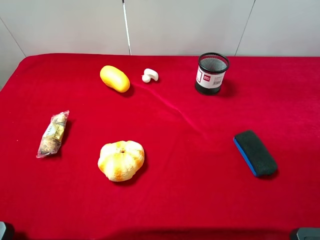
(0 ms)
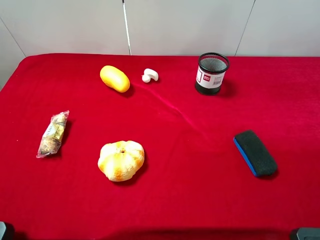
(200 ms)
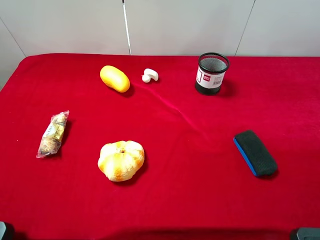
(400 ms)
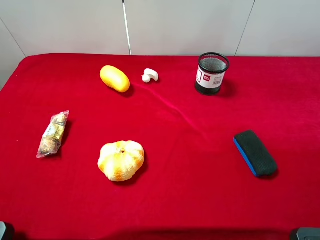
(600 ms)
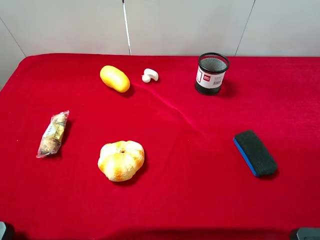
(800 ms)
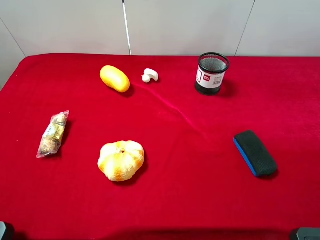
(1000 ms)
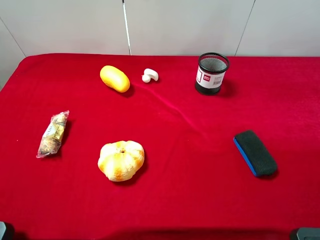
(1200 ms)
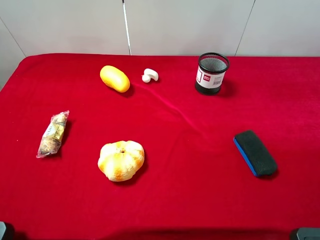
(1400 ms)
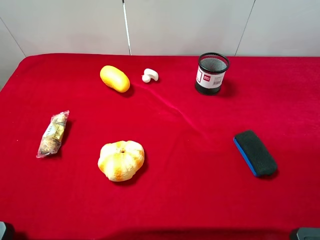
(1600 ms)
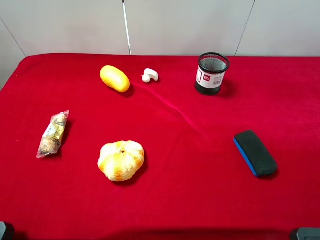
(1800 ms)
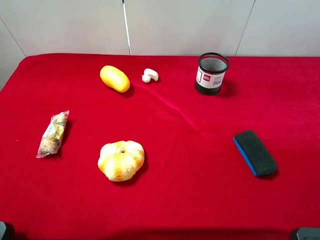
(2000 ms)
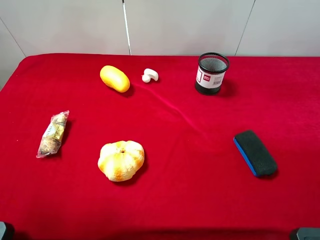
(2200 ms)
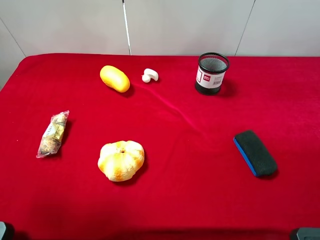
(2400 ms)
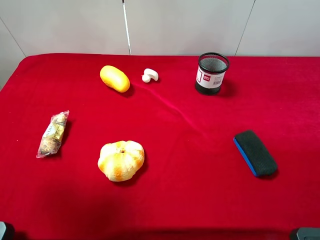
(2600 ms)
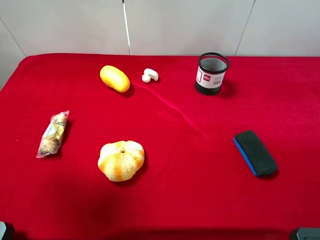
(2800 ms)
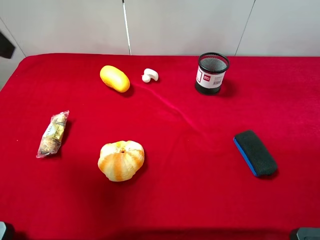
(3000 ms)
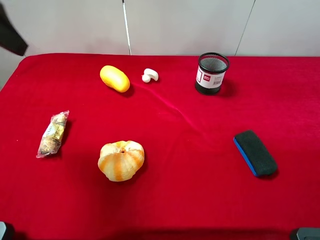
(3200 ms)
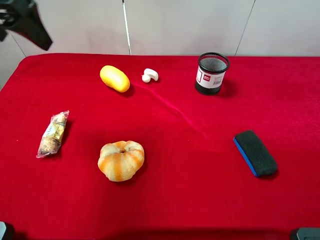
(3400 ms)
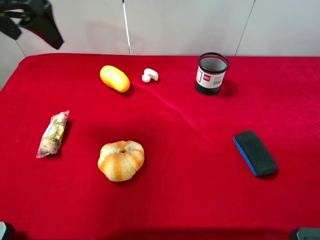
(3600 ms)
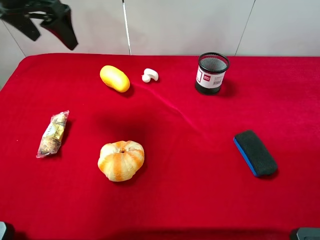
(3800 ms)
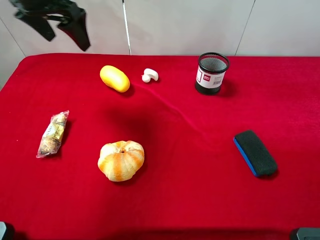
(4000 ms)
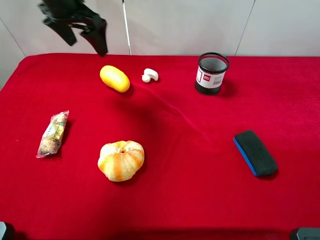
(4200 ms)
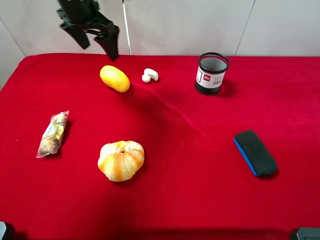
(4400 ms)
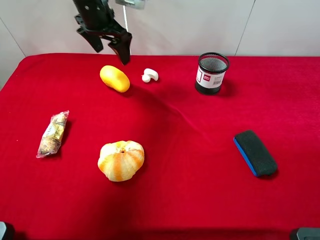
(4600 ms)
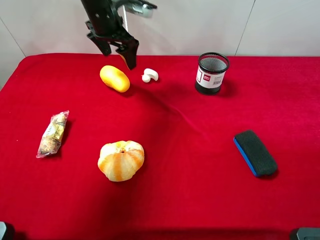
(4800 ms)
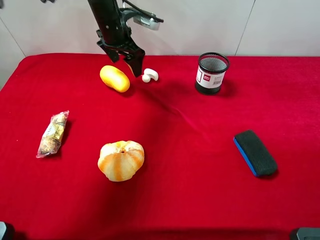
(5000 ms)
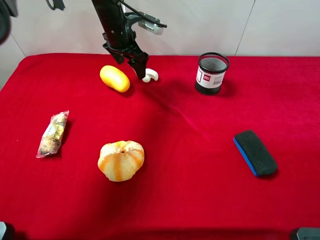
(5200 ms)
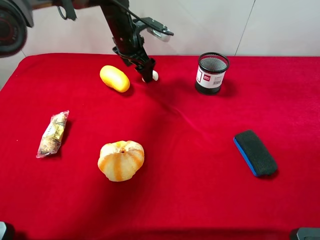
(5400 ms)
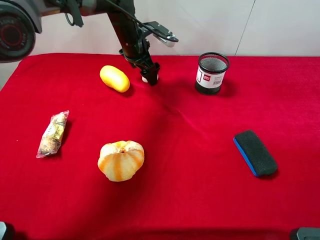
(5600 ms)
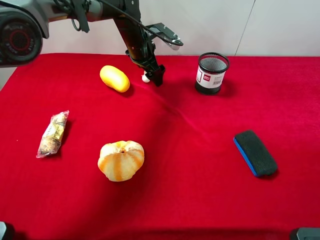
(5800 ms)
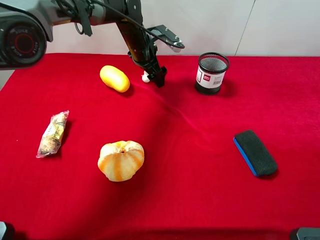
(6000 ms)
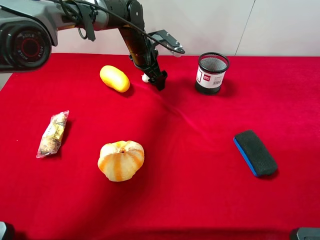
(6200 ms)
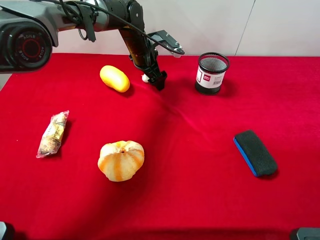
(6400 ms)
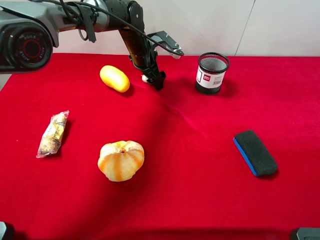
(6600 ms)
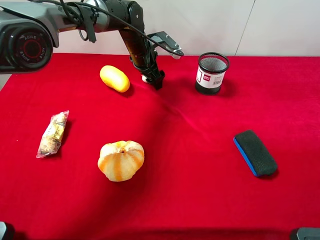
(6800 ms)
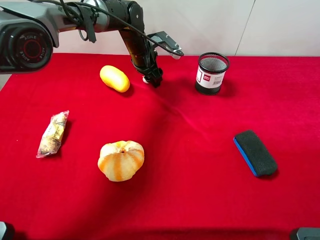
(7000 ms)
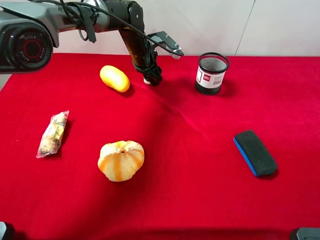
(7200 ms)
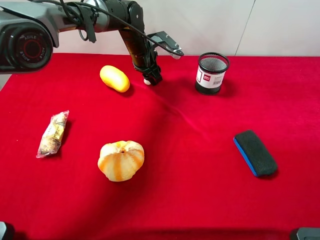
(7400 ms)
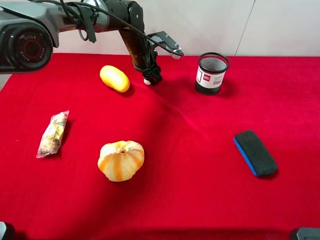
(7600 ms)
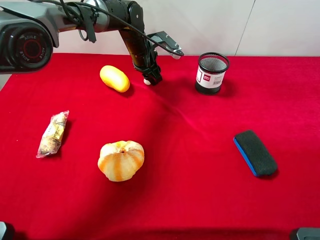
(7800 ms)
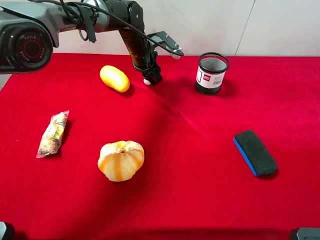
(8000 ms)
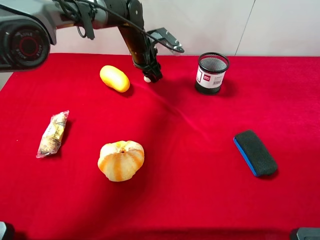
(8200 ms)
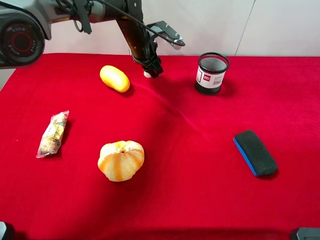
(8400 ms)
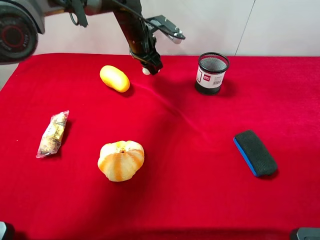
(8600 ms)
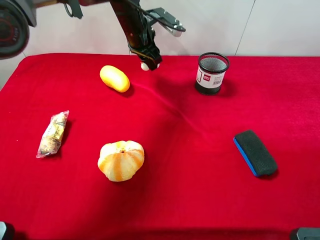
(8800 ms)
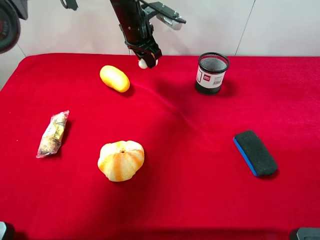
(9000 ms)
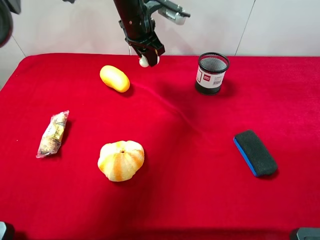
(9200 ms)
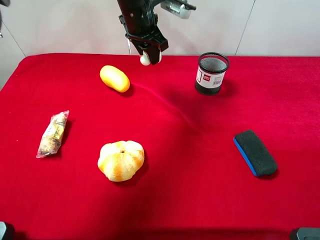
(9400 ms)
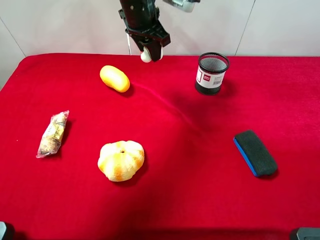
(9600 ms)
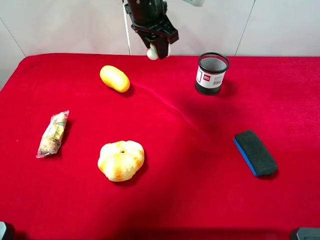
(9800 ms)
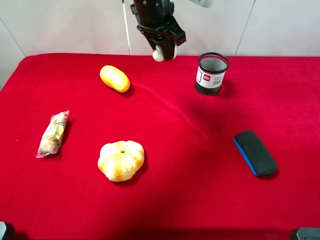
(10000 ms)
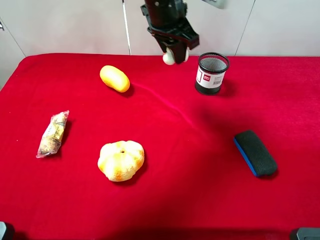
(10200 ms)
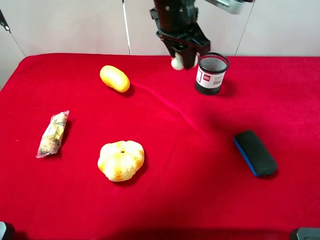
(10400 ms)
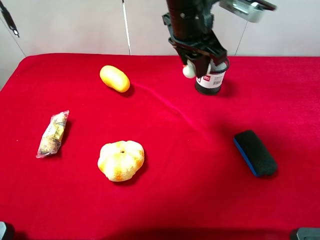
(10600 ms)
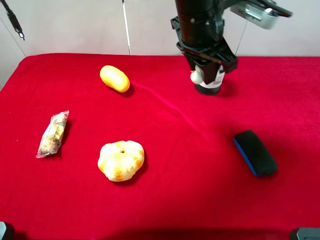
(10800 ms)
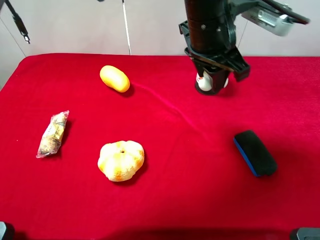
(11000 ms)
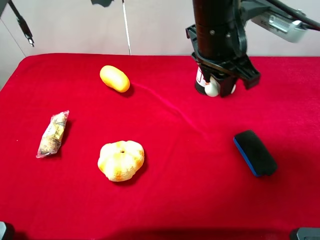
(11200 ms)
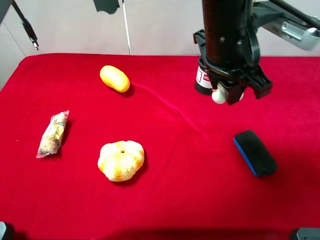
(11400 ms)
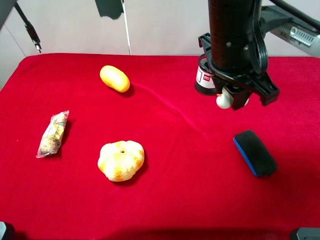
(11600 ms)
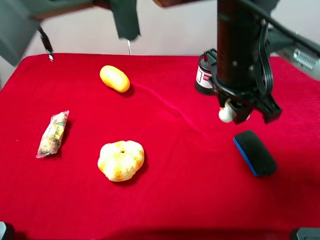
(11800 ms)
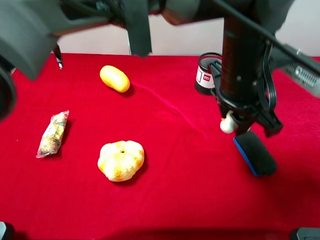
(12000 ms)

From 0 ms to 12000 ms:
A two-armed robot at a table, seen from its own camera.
Task of the whole recording: the gripper move the object.
Step, from 0 ms to 7400 ms: Grasp the white duck with the left gripper.
From 1600 ms to 3000 ms: The left gripper goes some 20 cm forward.
From 3000 ms to 4400 ms: The left gripper heads forward, to the right and downward, covering some 25 cm.
From 4400 ms to 6000 ms: The left gripper is displaced downward, to the right and forward by roughly 15 cm.
From 6000 ms to 7600 ms: The left gripper closes its fingers.
From 7600 ms to 9000 ms: The left gripper is displaced upward by approximately 10 cm.
From 9000 ms to 10400 ms: The left gripper goes about 15 cm backward, to the right and upward.
From 10400 ms to 12000 ms: The left gripper heads backward and to the right, covering about 15 cm.

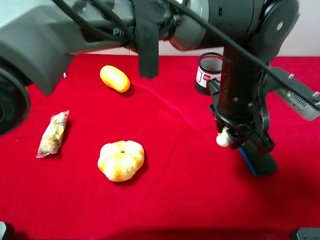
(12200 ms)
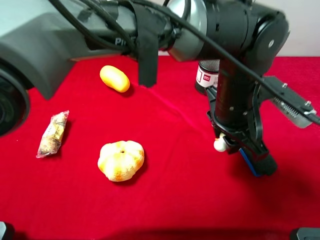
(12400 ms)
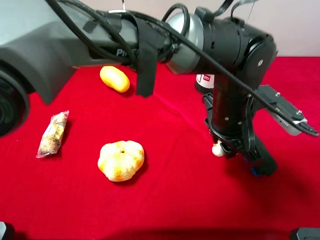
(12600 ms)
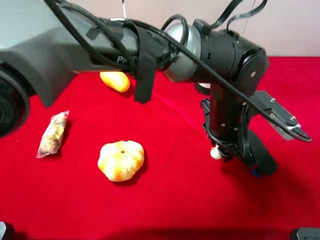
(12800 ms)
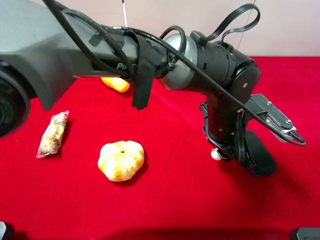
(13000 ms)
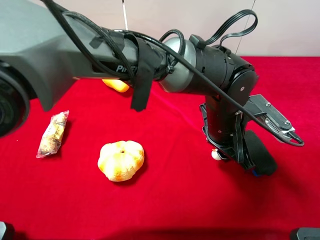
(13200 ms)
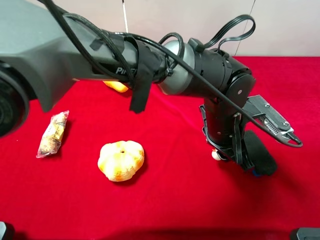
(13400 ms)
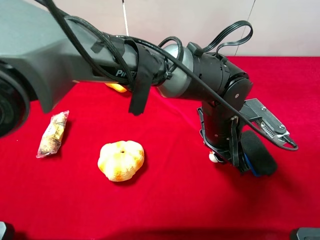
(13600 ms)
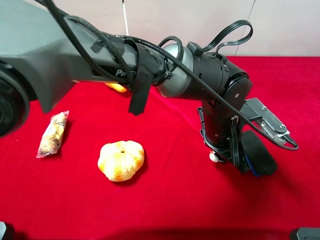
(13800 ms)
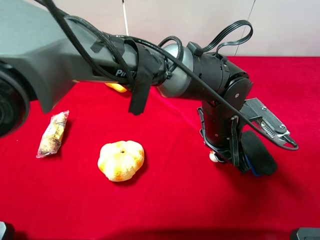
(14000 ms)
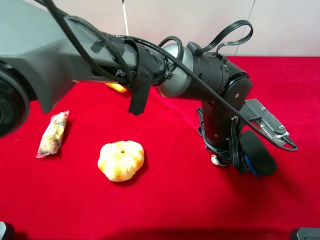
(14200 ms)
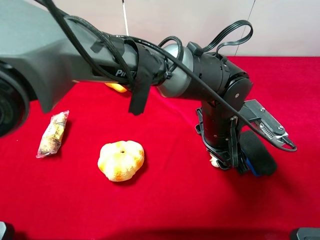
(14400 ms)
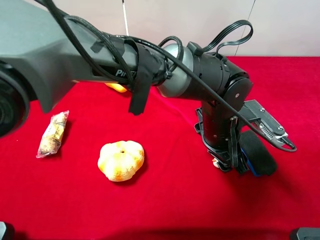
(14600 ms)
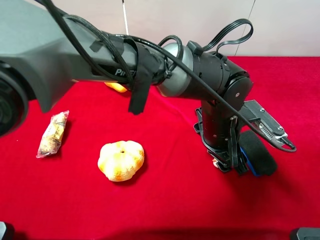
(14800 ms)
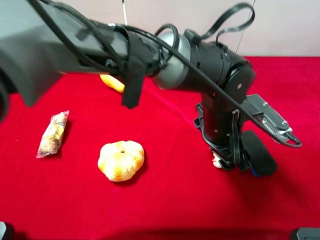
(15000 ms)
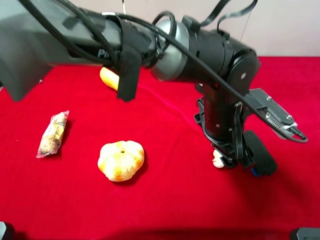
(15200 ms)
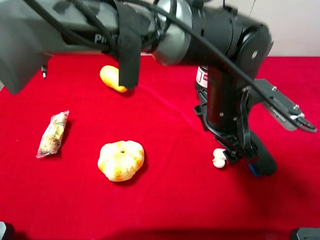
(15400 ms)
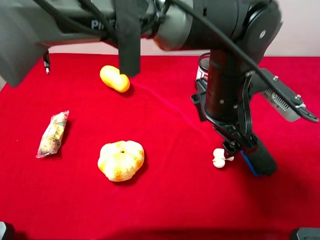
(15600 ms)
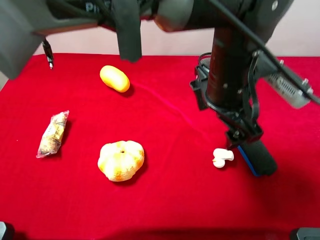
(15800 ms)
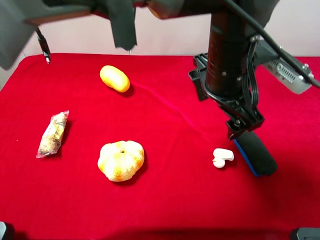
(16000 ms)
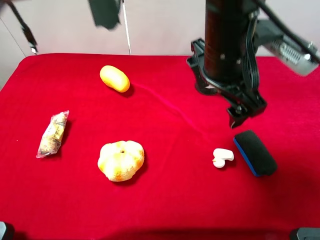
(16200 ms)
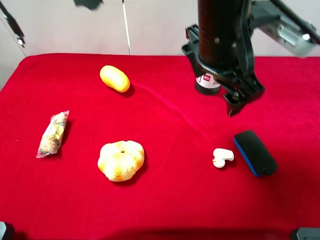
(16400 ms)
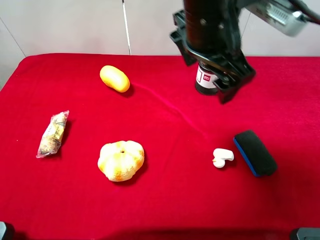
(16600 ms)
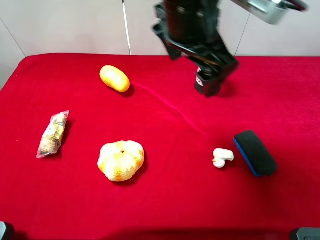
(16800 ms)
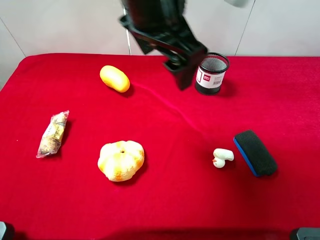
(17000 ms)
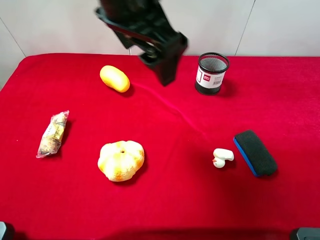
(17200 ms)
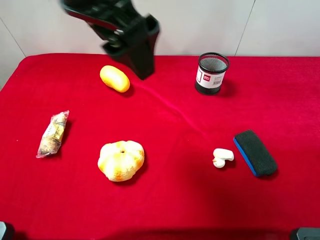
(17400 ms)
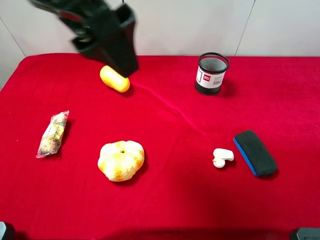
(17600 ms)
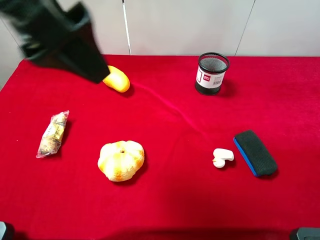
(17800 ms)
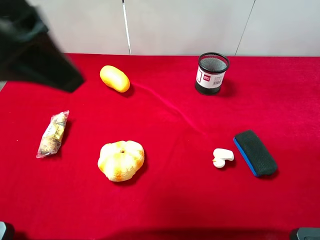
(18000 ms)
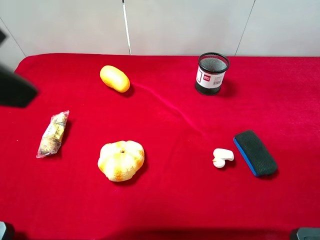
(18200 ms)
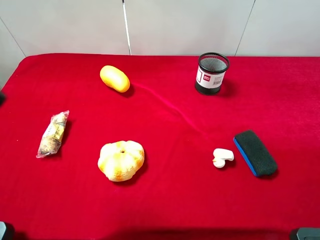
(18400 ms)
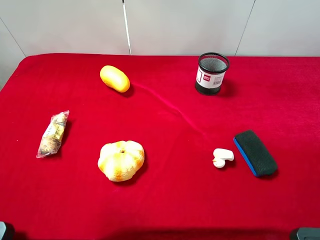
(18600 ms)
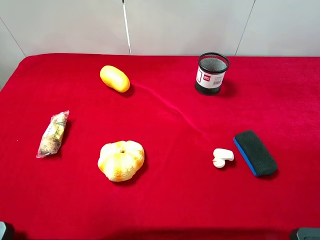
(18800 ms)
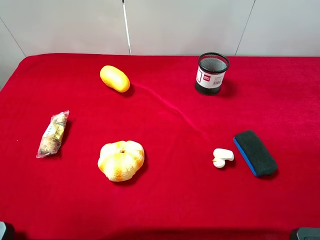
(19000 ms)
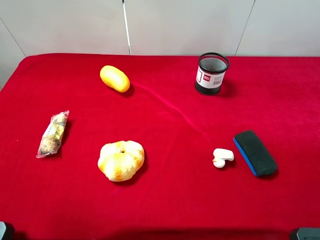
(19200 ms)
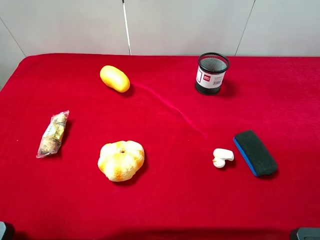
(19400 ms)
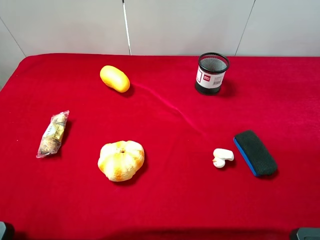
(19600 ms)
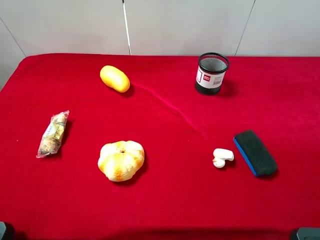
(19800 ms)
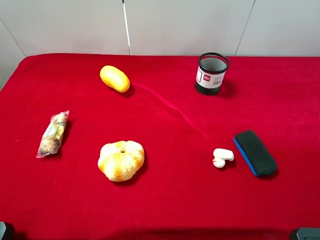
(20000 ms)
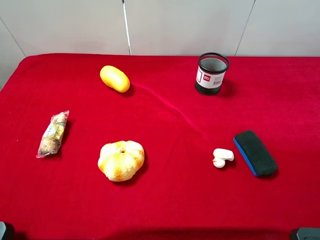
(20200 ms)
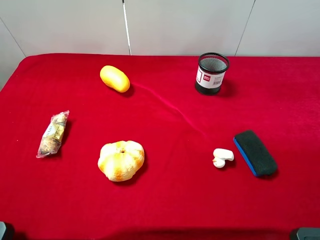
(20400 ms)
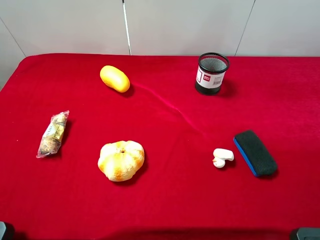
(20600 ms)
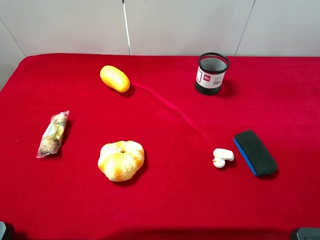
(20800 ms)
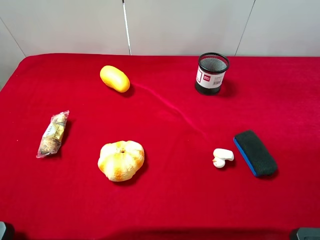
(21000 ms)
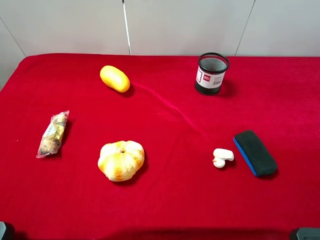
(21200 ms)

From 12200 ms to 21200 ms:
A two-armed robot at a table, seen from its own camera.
Task of the whole recording: the gripper move the object.
Step, from 12200 ms to 15600 ms: Place the white duck on the table with the left gripper.
From 12200 ms to 13800 ms: The left gripper heads downward, covering some 5 cm.
From 13800 ms to 15200 ms: The left gripper opens its fingers.
From 15200 ms to 16600 ms: The left gripper heads upward, covering about 15 cm.
From 16600 ms to 18200 ms: The left gripper moves to the left and backward, some 30 cm.
From 18200 ms to 19800 ms: The left gripper moves to the left, downward and backward, some 20 cm.
